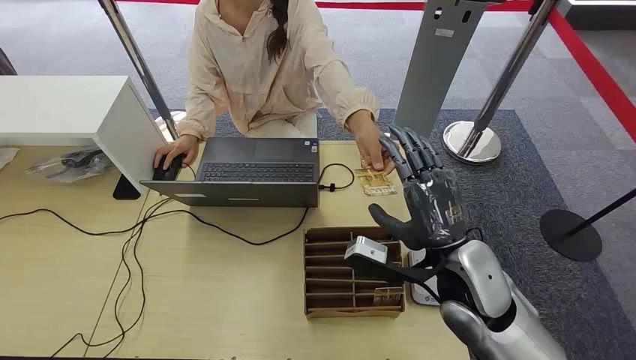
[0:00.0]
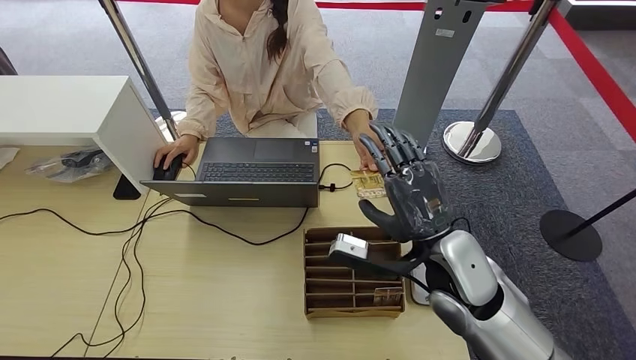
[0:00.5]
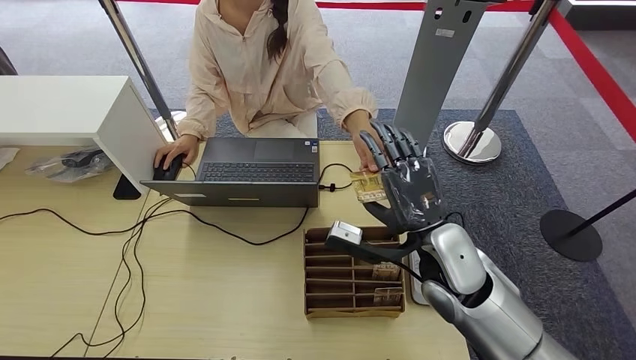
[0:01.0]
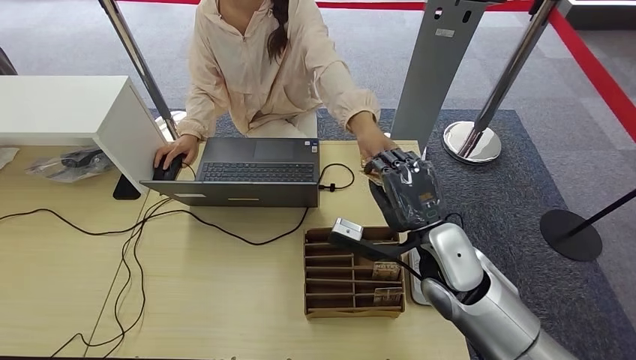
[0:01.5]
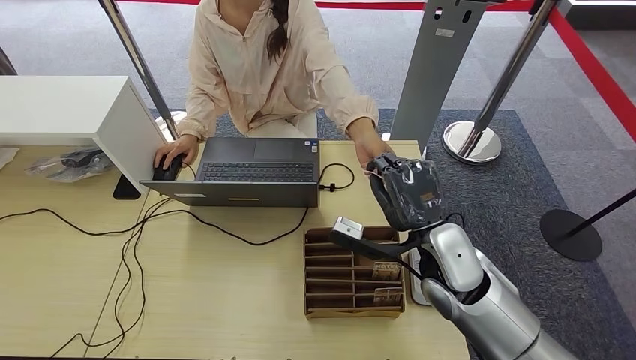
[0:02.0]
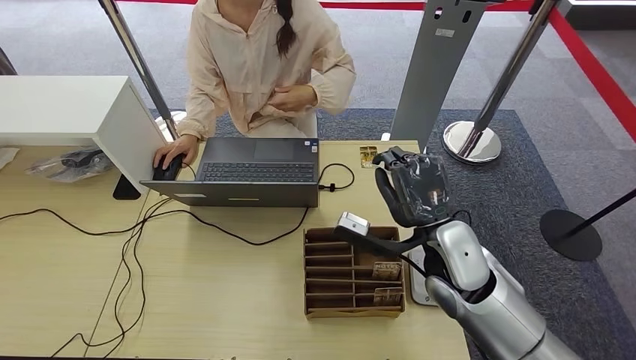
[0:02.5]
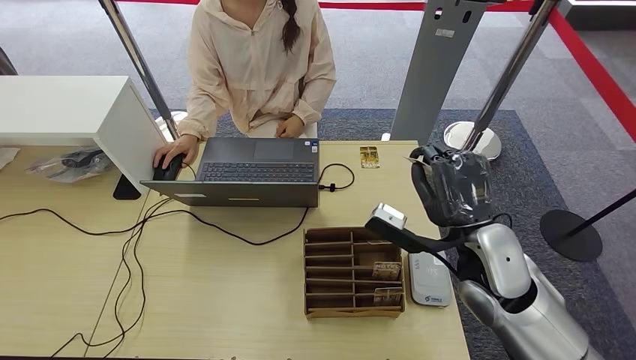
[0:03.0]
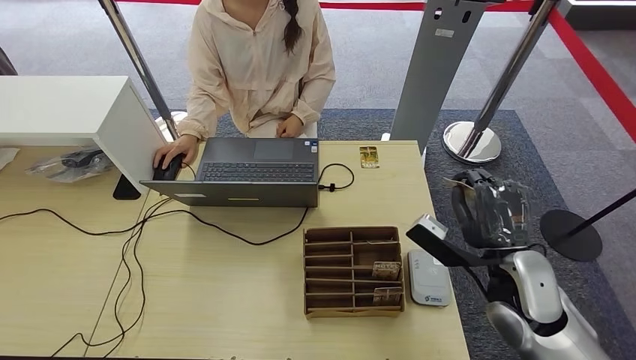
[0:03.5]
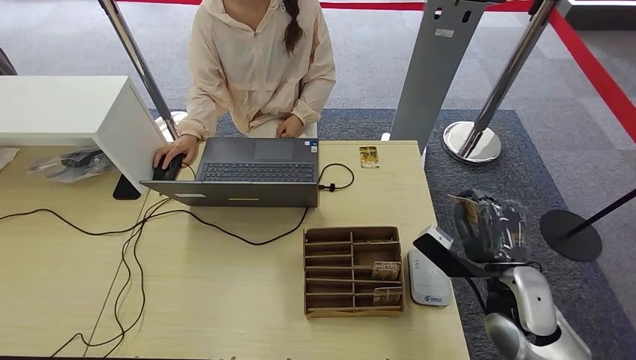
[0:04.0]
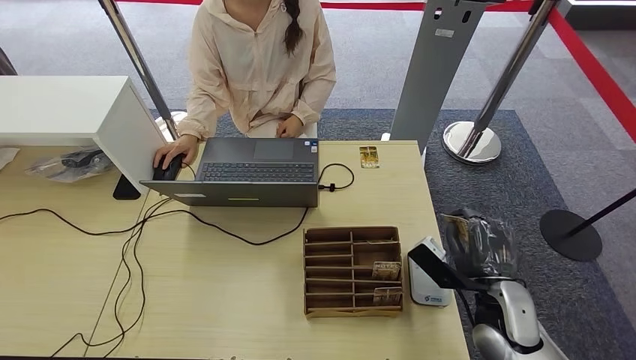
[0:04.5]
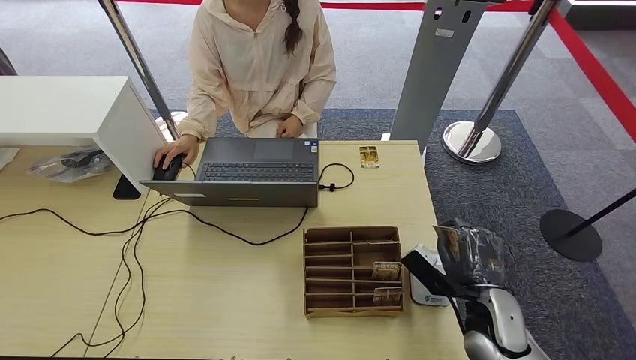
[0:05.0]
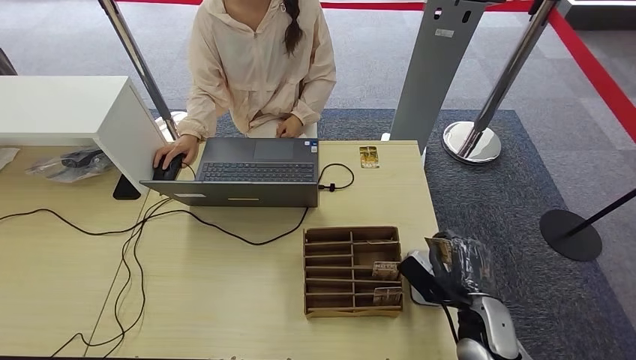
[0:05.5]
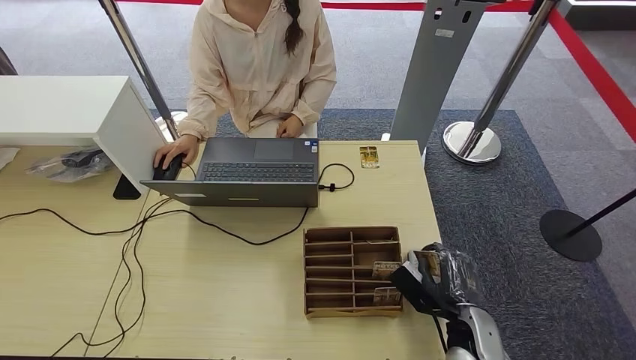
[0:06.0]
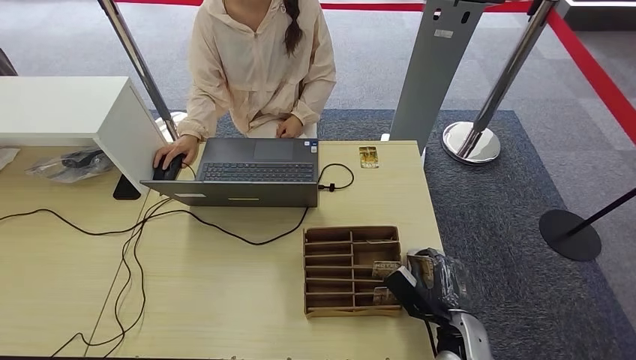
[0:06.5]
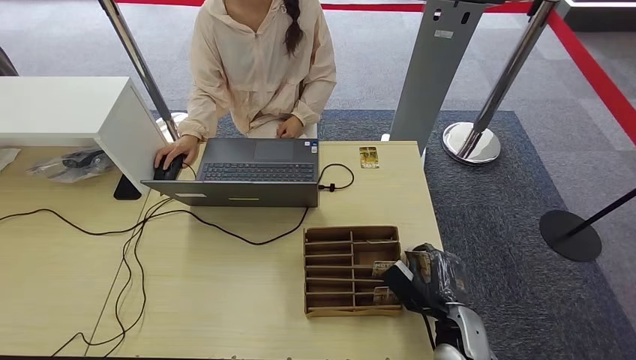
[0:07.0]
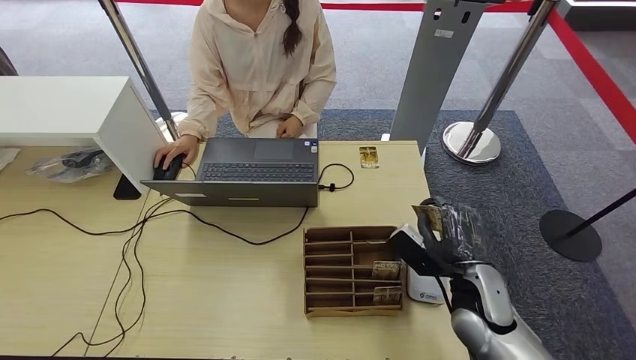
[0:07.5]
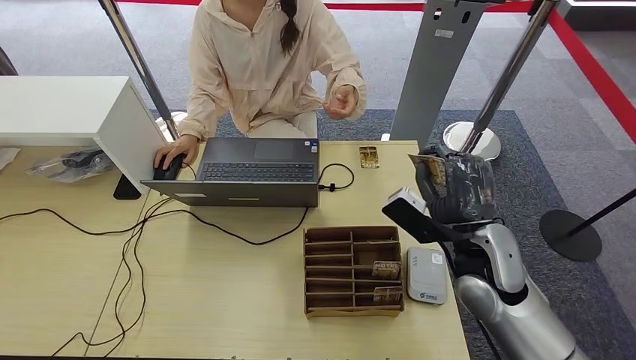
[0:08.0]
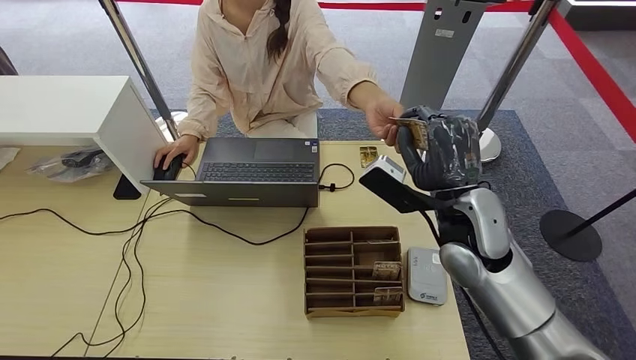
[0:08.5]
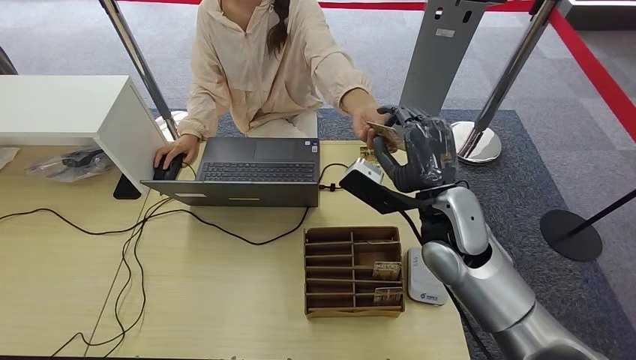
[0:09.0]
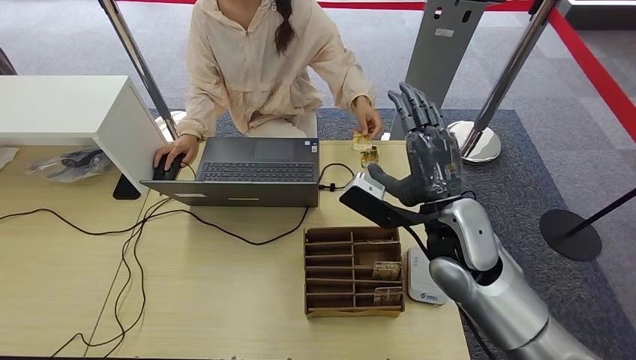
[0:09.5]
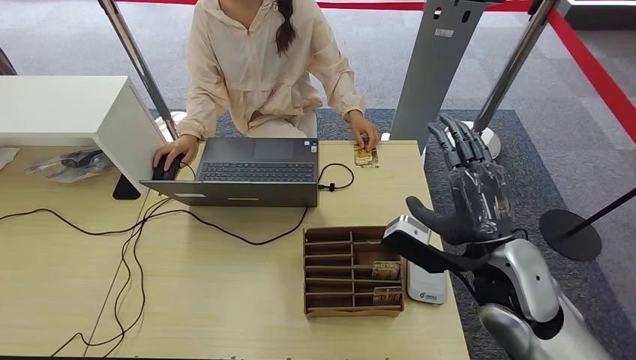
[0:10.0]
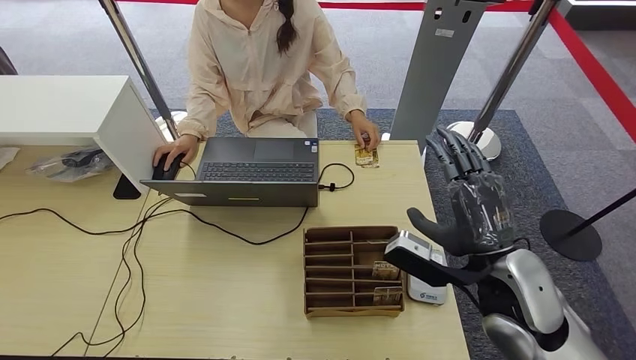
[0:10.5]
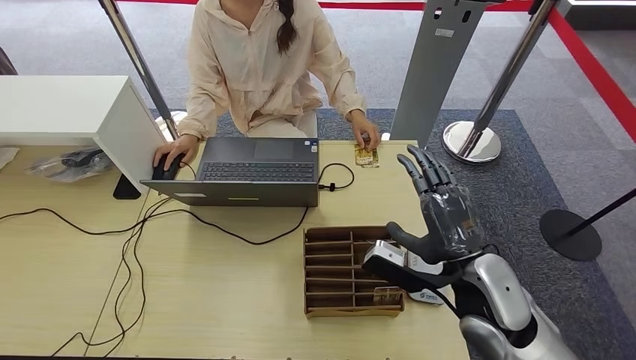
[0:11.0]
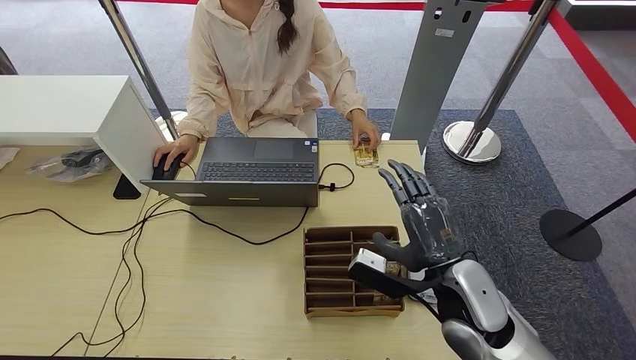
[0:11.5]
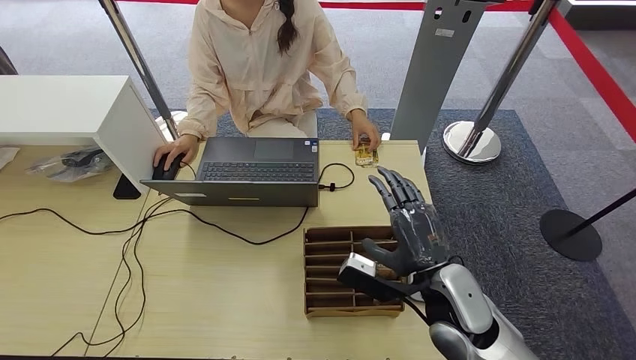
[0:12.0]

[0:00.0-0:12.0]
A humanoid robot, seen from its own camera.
Step, 0:00.0 to 0:02.5: Take the ID card from the person's hand.
Step, 0:03.0 to 0:07.0: Place the ID card on the card reader.
Step, 0:07.5 to 0:10.5: Hand the ID card to the person.
0:02.0 to 0:04.0: The right hand travels to the right and backward by some 15 cm.
0:04.0 to 0:06.0: The right hand shifts about 10 cm downward.
0:06.0 to 0:08.0: The right hand goes some 20 cm upward and forward.
0:08.0 to 0:10.0: The right hand changes place by about 5 cm.
0:10.0 to 0:12.0: The right hand goes approximately 10 cm downward.

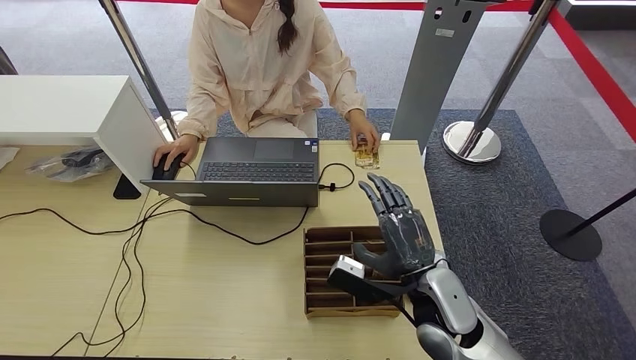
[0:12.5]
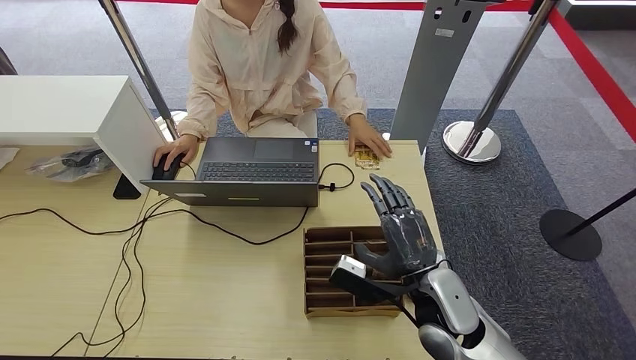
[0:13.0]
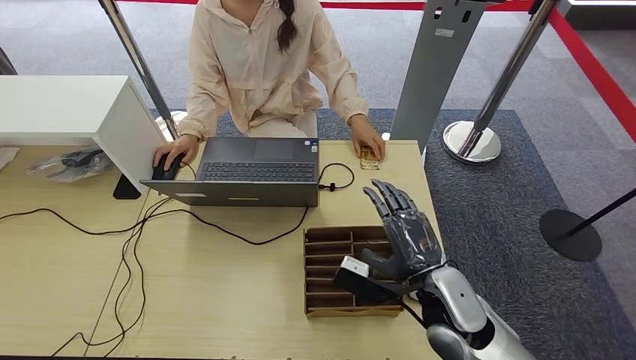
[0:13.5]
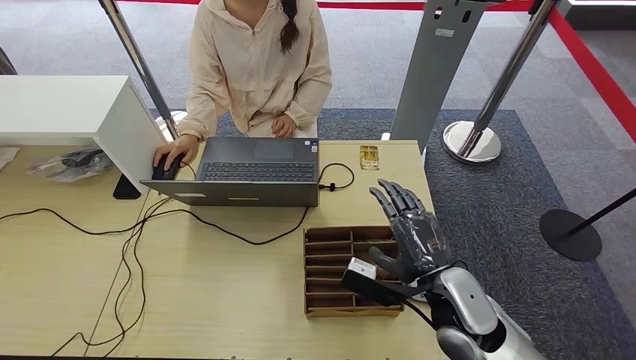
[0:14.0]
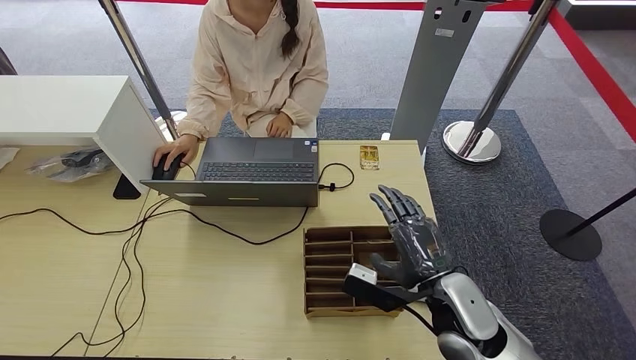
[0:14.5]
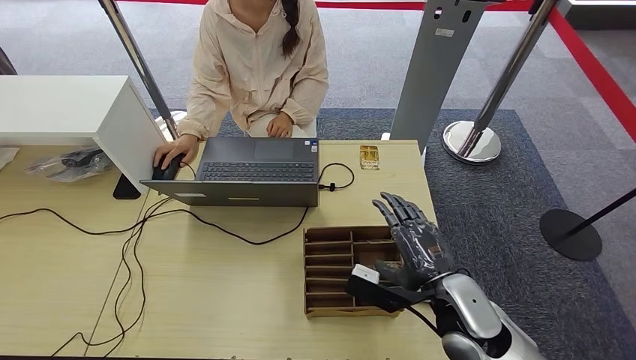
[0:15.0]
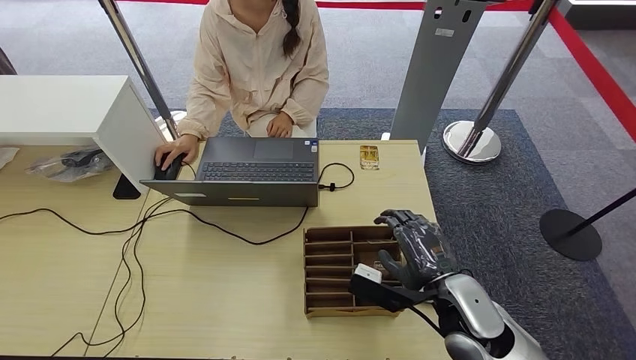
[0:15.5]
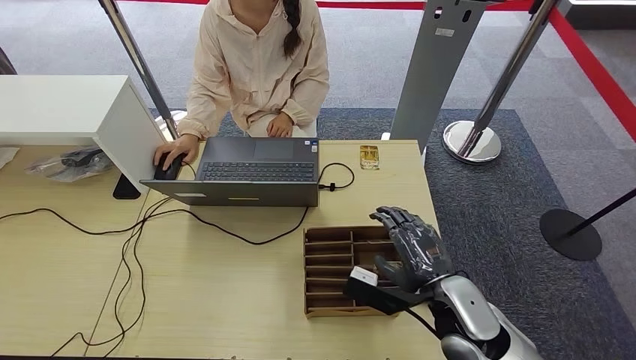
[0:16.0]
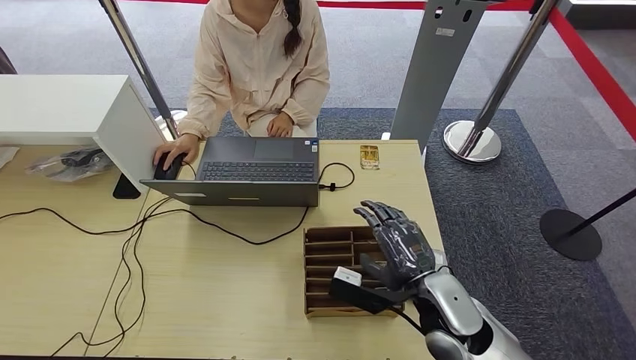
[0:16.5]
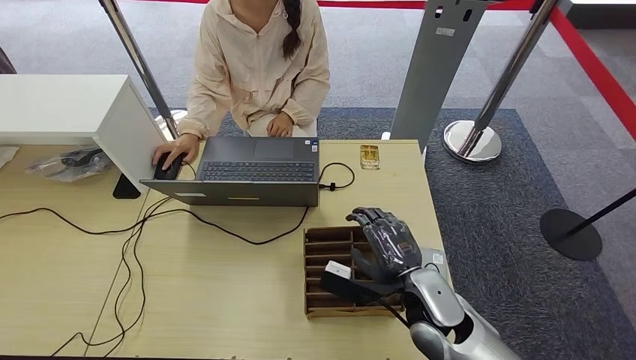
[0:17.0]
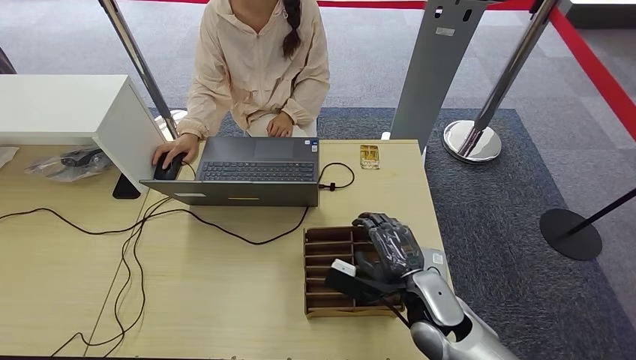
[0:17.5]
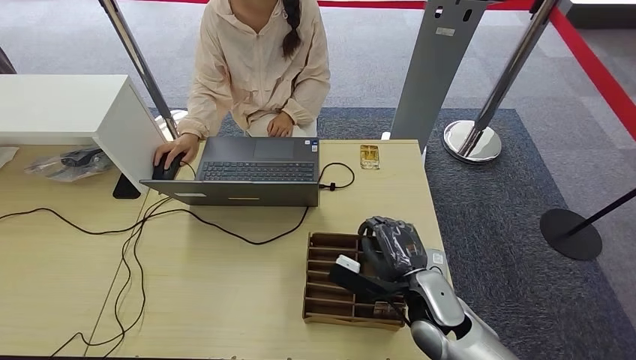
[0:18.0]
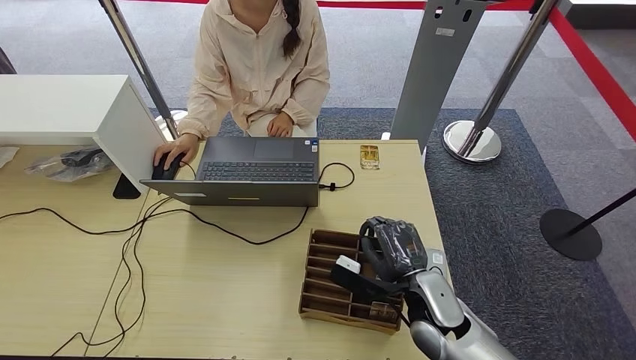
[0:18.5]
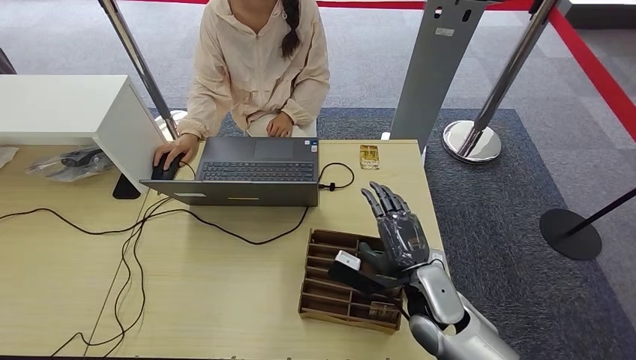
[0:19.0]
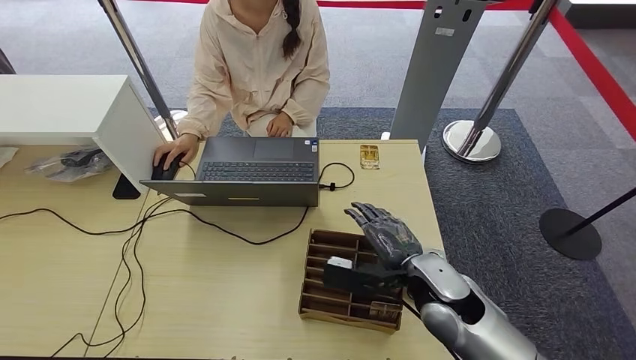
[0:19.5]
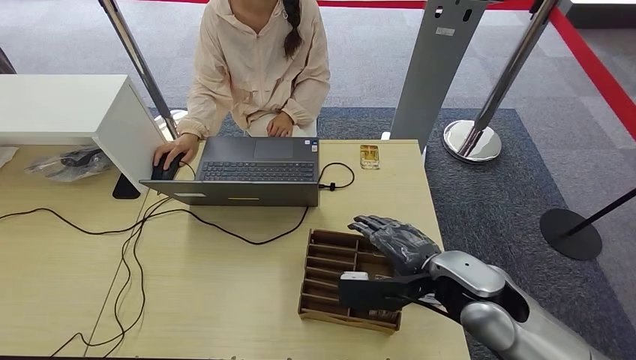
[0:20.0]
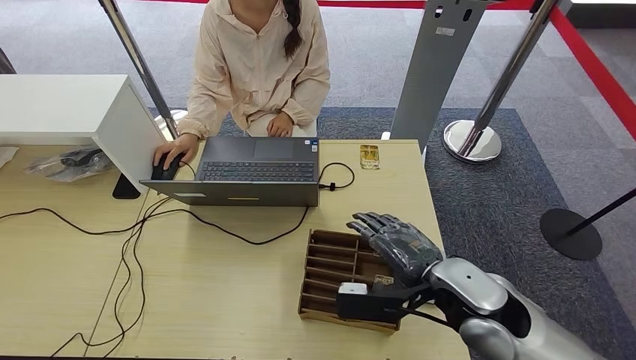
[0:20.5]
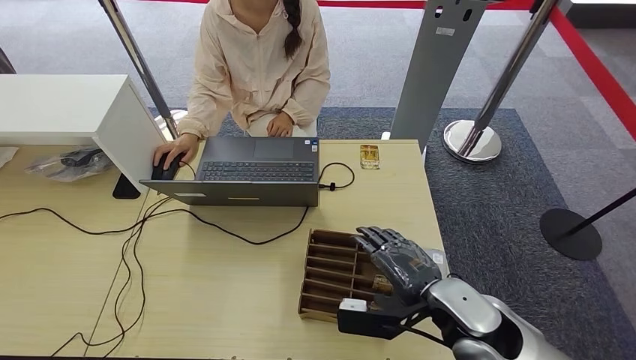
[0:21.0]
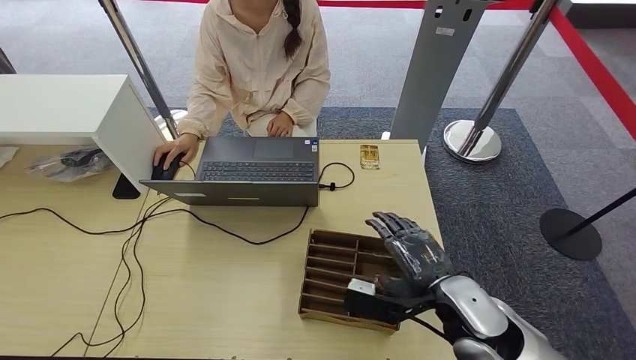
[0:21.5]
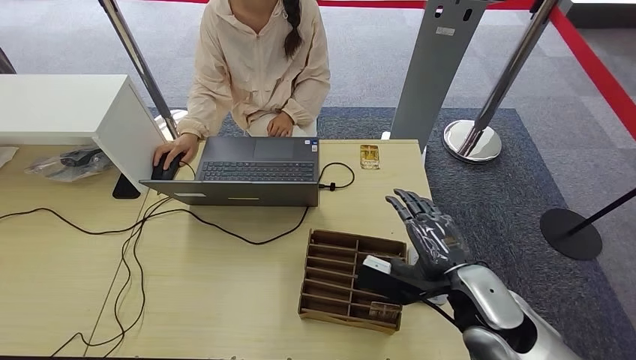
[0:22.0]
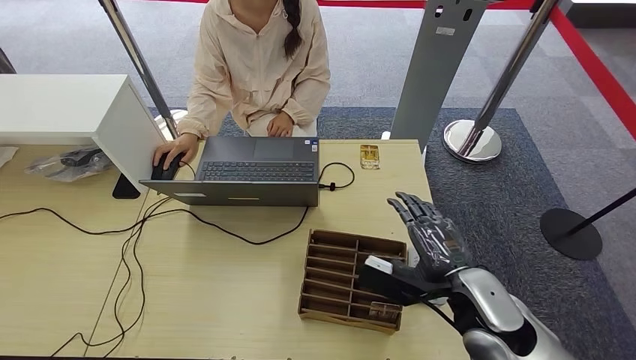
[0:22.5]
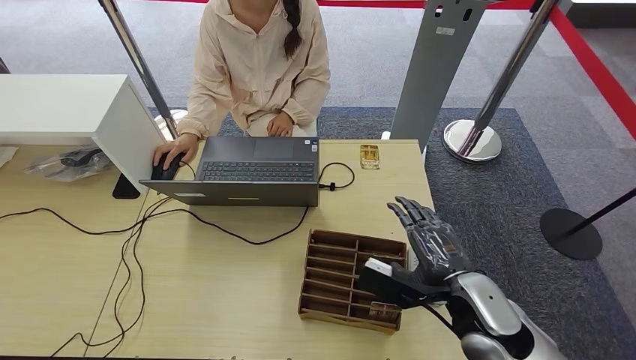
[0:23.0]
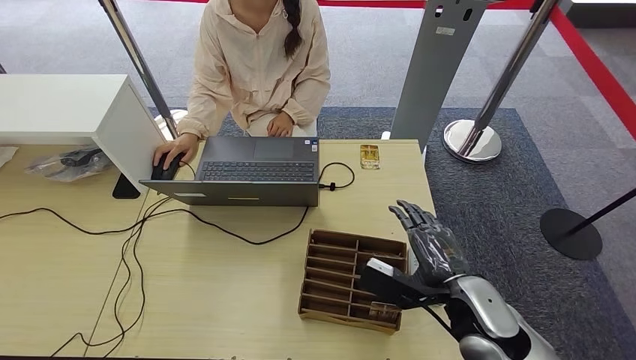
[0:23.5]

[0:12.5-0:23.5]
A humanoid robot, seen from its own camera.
0:12.5 to 0:16.0: The hands make only small movements.
0:16.0 to 0:18.0: The right hand moves roughly 5 cm.
0:18.0 to 0:20.0: The right hand is displaced upward by roughly 10 cm.
0:20.0 to 0:21.5: The right hand changes place by approximately 5 cm.
0:21.5 to 0:23.5: The hands make only small movements.
